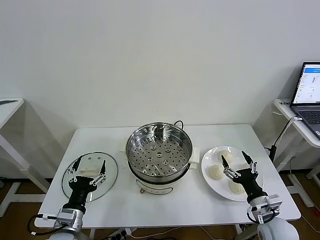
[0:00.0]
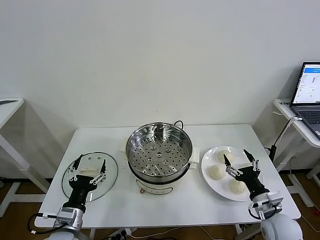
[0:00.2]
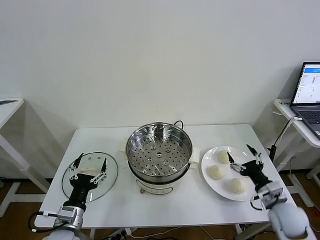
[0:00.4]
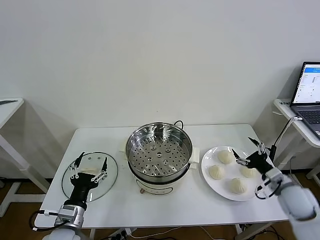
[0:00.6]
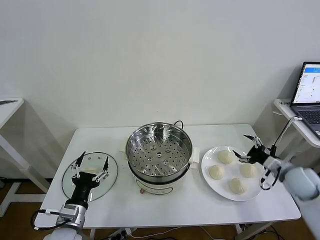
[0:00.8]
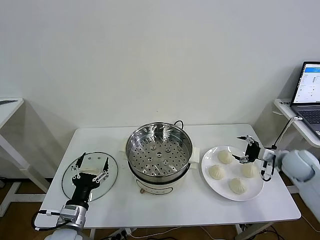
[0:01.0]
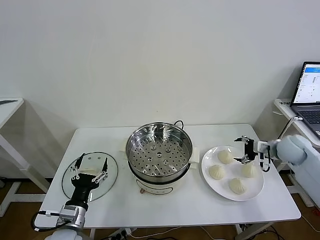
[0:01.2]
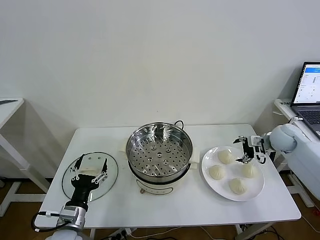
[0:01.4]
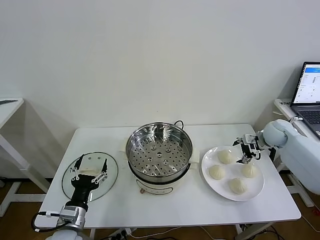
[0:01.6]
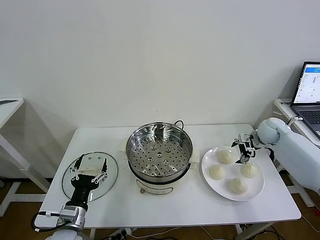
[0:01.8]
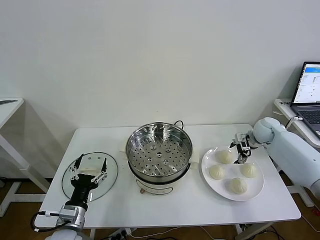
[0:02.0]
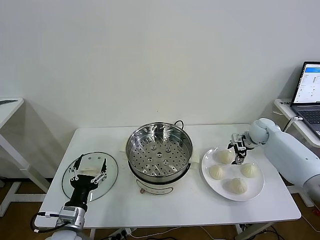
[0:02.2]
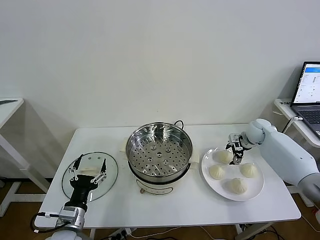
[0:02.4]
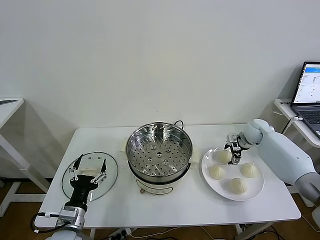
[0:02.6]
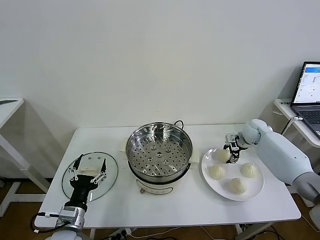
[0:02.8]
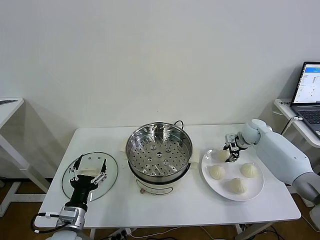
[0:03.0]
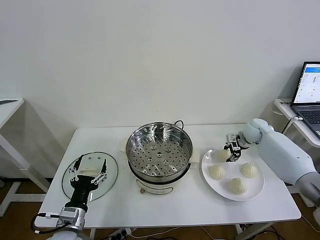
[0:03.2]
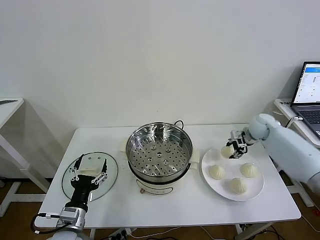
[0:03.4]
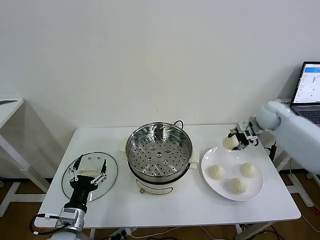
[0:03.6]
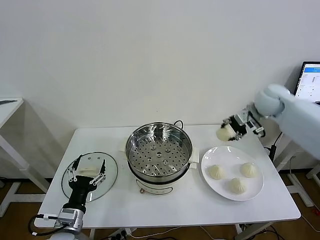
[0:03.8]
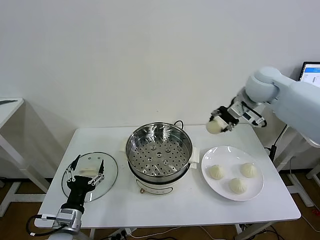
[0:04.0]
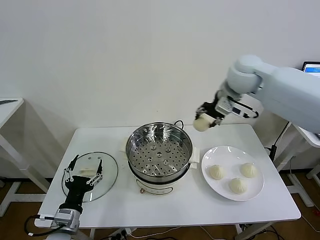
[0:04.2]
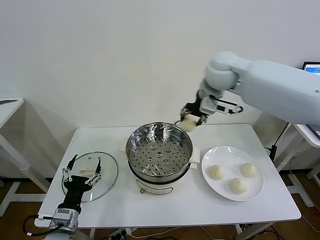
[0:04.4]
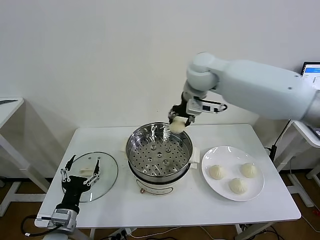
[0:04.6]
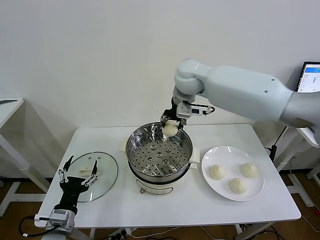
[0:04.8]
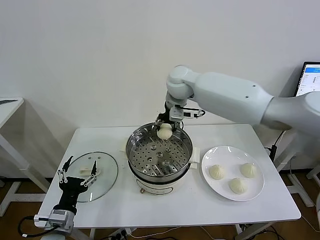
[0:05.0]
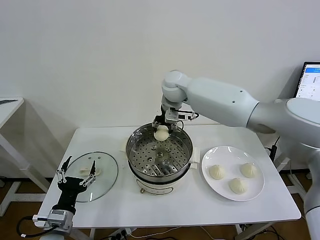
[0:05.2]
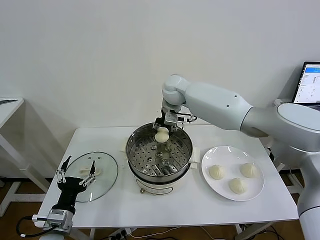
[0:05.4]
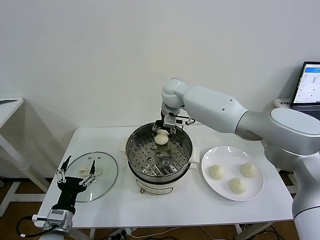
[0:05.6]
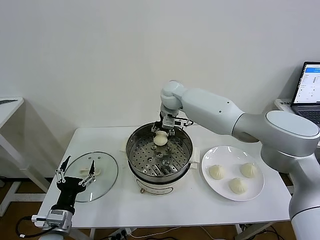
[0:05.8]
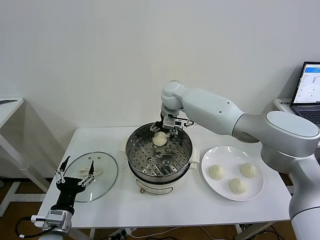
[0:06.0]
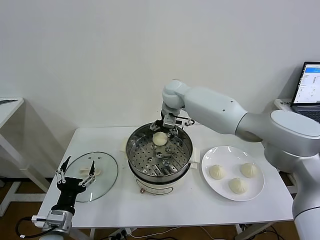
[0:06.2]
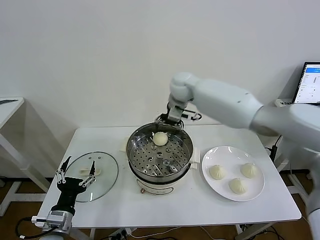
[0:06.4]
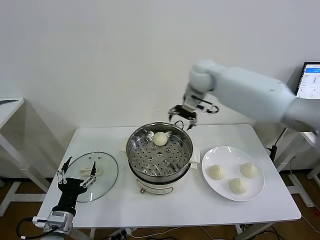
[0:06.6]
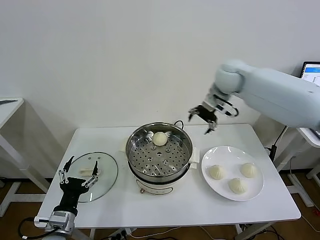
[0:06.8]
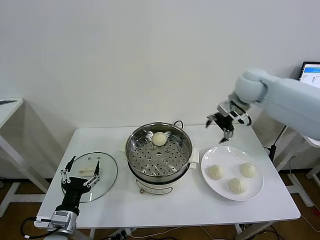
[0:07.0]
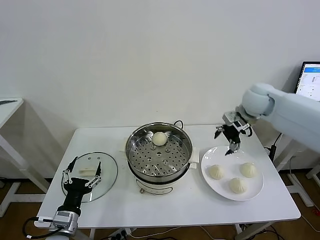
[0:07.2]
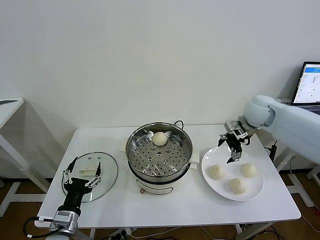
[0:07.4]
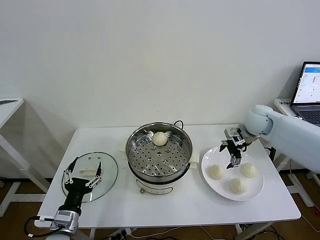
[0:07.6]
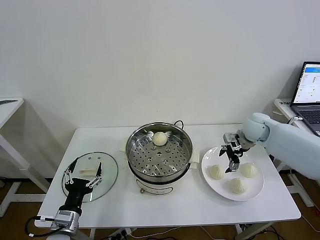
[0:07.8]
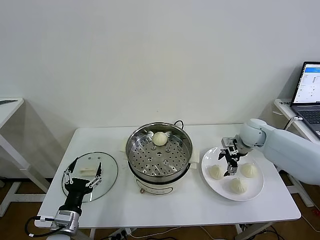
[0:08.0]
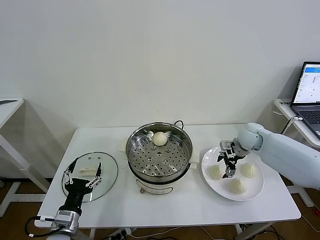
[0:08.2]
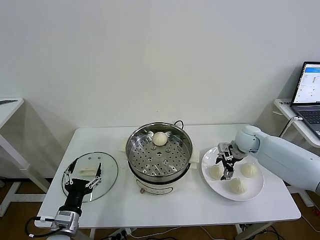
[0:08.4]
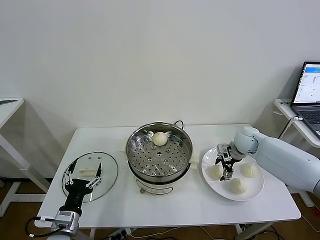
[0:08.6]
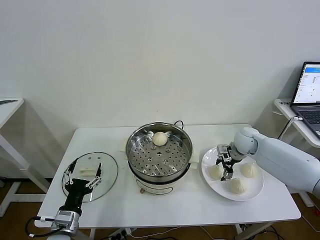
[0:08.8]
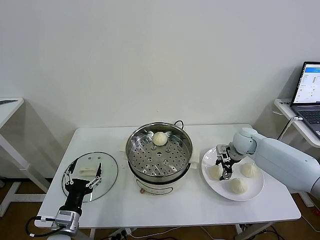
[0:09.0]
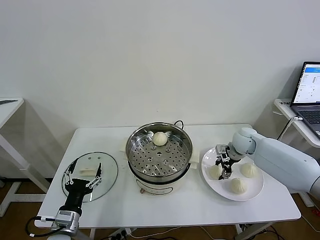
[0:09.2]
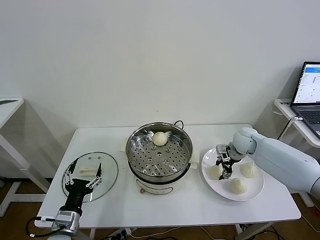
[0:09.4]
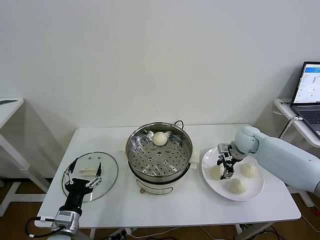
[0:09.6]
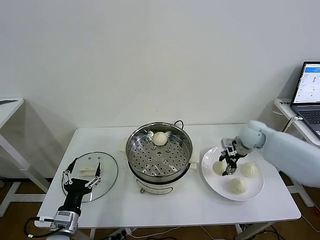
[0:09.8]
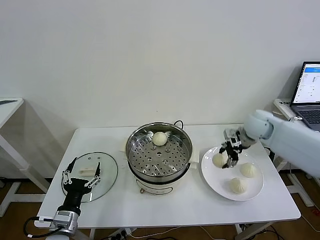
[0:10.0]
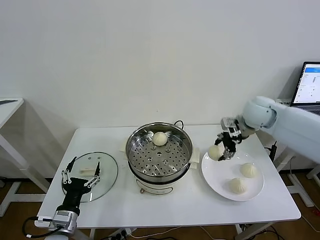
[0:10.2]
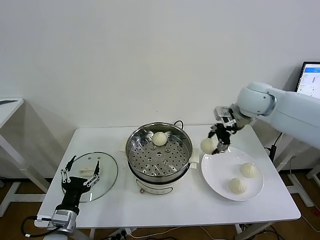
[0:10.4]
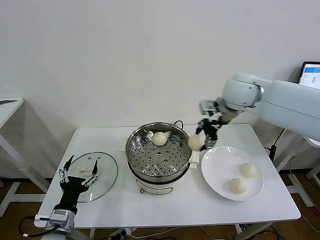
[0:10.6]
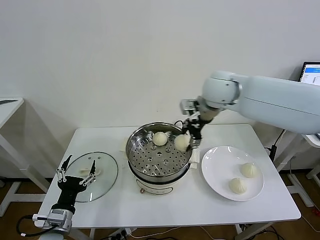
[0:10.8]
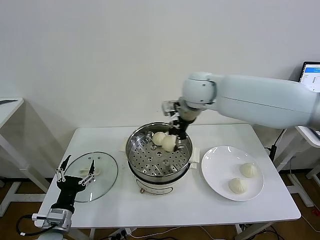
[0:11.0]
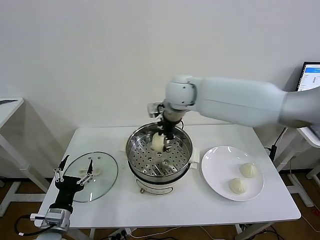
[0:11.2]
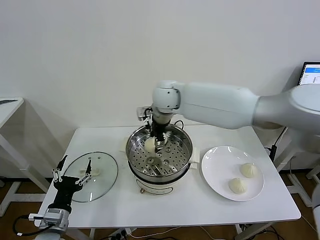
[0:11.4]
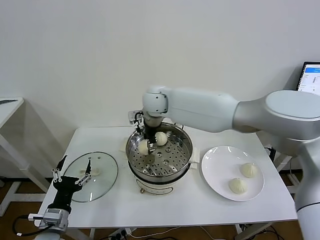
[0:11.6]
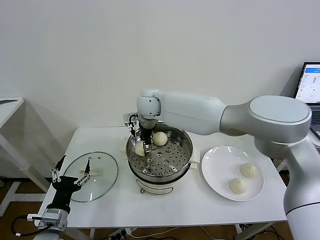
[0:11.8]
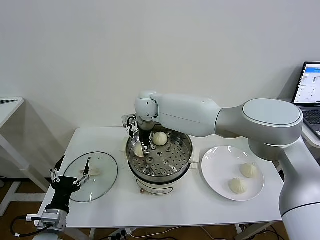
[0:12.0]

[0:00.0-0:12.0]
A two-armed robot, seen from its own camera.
Task of the whole recording: take steamed baozi put them in steamer then cover it.
Step, 0:00.0 to 0:02.8: Grasp the baozi in the plate with right gripper.
Step, 0:03.0 to 0:06.0: Place the baozi on the steamer with right gripper.
Step, 0:06.2 to 0:09.0: Grasp the baozi in the plate with right gripper.
0:01.6 to 0:03.0: The right gripper moves about 5 cm, and closes.
0:03.0 to 0:04.4: The right gripper shifts approximately 40 cm upward and to the left.
0:04.4 to 0:06.0: The right gripper is displaced downward, to the left and forward by approximately 15 cm, and opens its fingers.
0:06.0 to 0:07.6: The right gripper goes roughly 30 cm to the right.
0:07.6 to 0:09.0: The right gripper travels downward by some 10 cm, and closes up.
0:09.0 to 0:10.4: The right gripper is displaced upward by some 25 cm.
0:10.4 to 0:12.0: The right gripper is displaced to the left by some 30 cm, and opens its fingers.

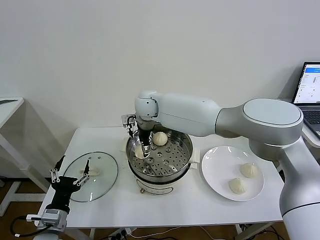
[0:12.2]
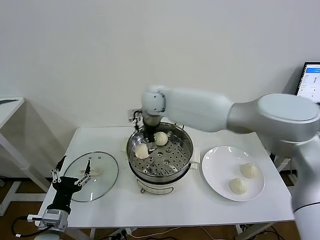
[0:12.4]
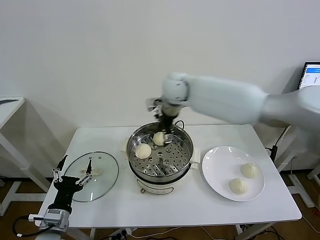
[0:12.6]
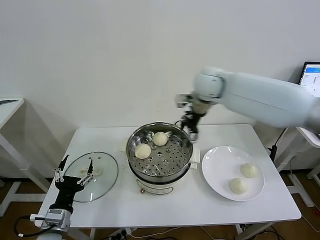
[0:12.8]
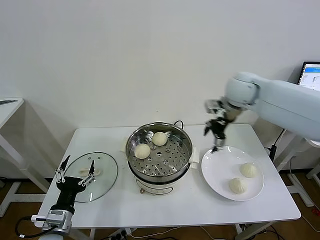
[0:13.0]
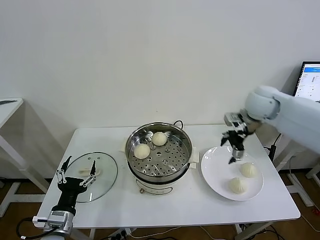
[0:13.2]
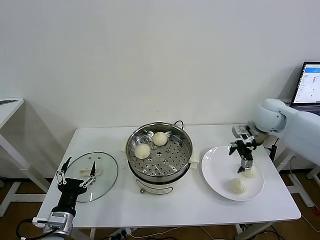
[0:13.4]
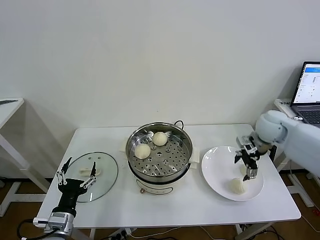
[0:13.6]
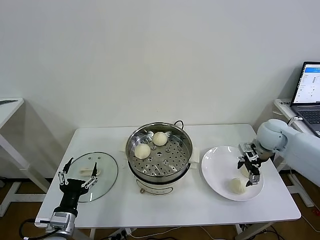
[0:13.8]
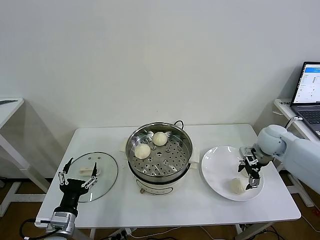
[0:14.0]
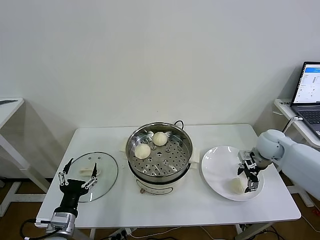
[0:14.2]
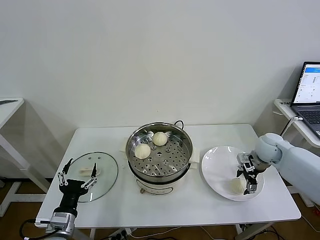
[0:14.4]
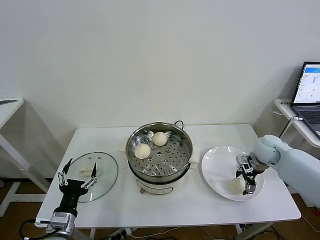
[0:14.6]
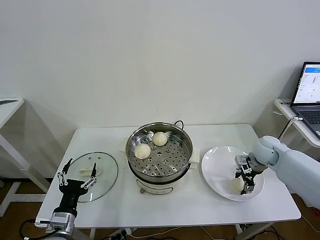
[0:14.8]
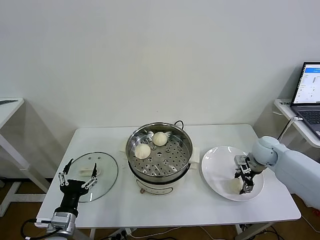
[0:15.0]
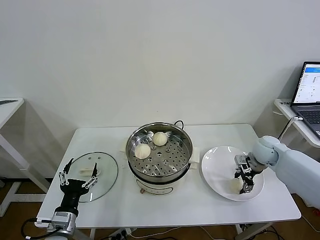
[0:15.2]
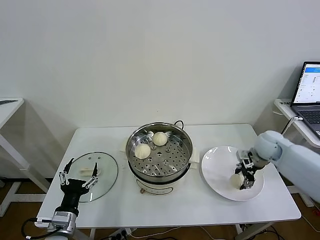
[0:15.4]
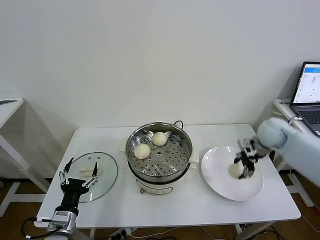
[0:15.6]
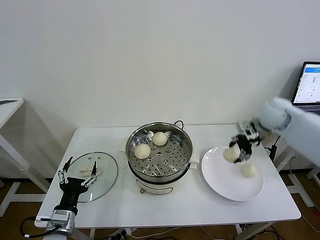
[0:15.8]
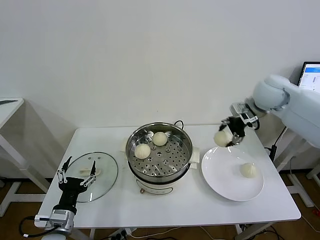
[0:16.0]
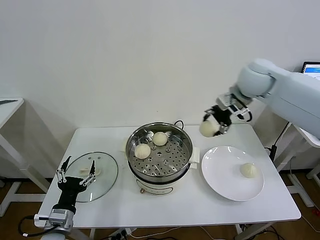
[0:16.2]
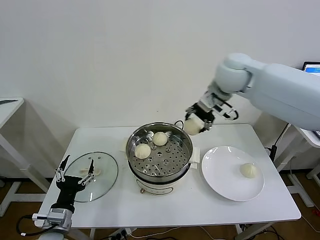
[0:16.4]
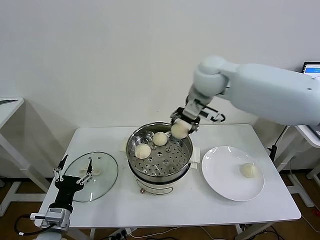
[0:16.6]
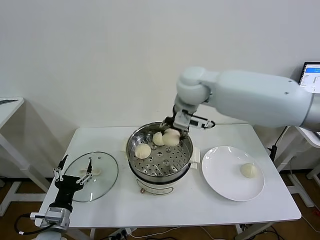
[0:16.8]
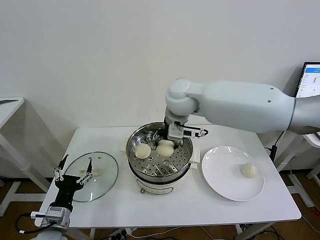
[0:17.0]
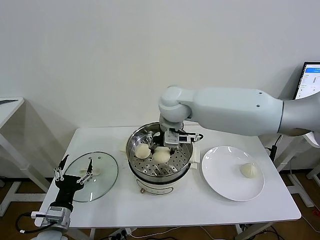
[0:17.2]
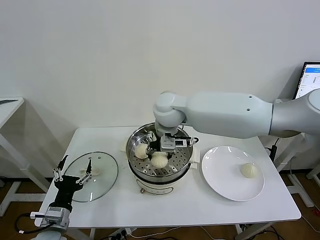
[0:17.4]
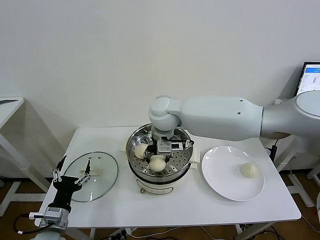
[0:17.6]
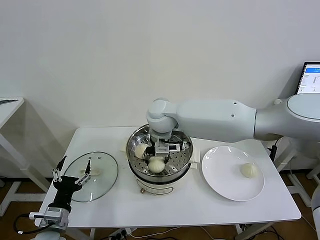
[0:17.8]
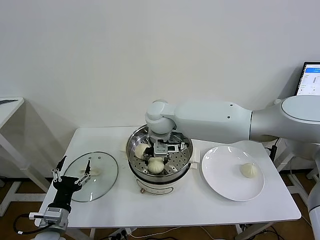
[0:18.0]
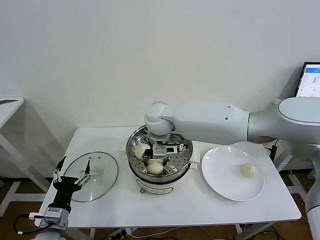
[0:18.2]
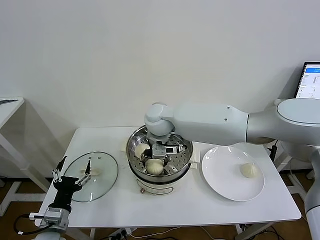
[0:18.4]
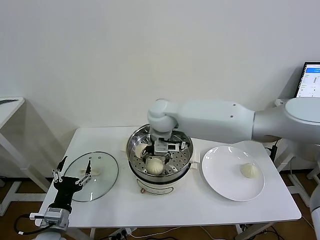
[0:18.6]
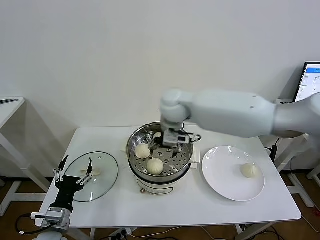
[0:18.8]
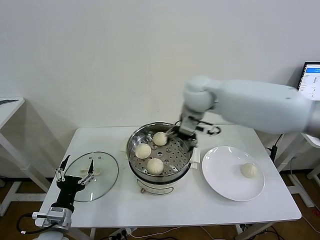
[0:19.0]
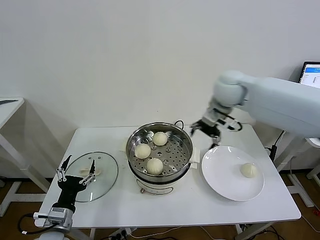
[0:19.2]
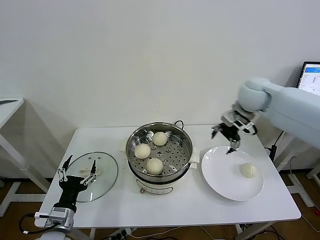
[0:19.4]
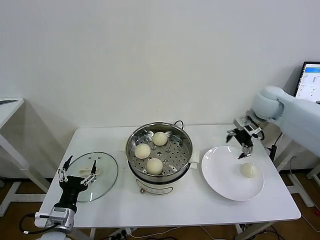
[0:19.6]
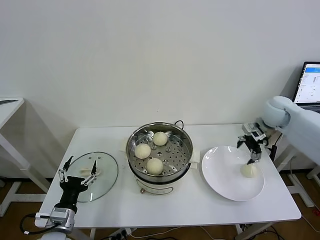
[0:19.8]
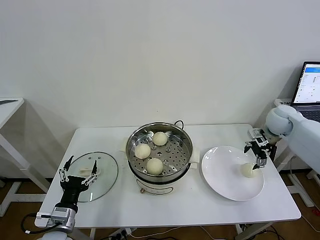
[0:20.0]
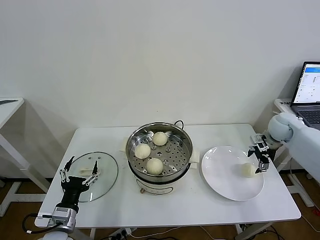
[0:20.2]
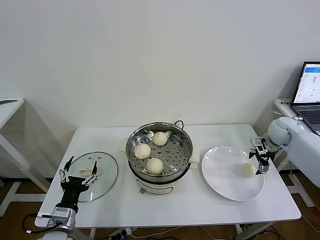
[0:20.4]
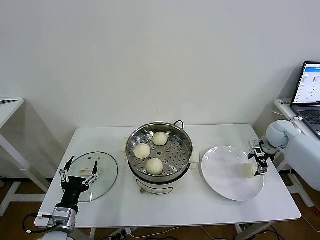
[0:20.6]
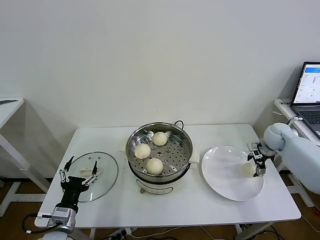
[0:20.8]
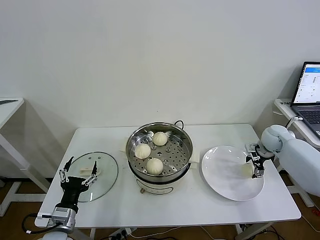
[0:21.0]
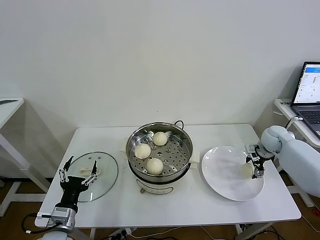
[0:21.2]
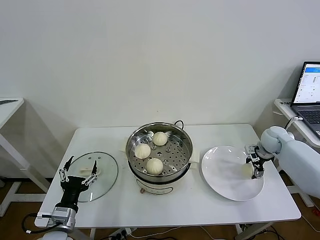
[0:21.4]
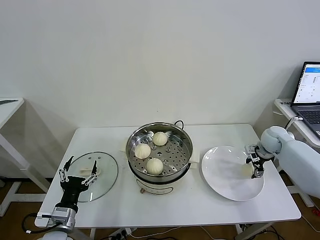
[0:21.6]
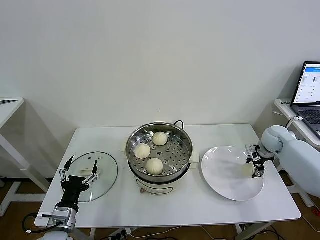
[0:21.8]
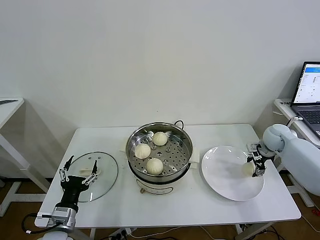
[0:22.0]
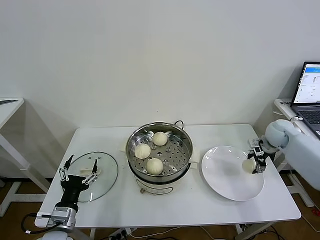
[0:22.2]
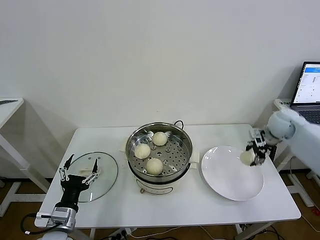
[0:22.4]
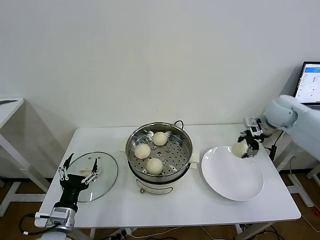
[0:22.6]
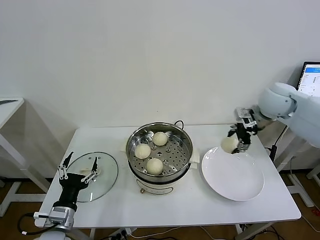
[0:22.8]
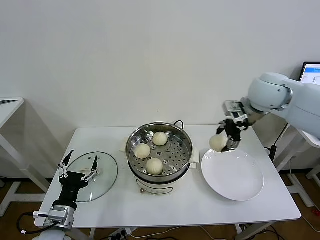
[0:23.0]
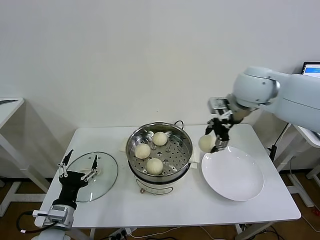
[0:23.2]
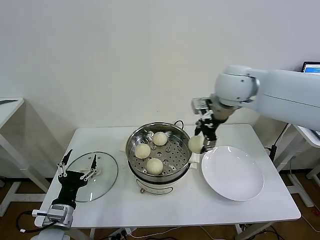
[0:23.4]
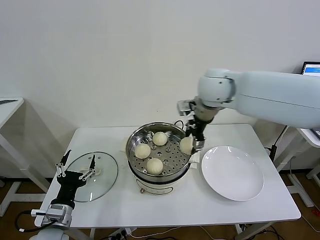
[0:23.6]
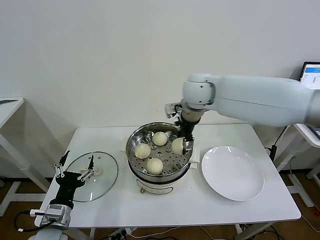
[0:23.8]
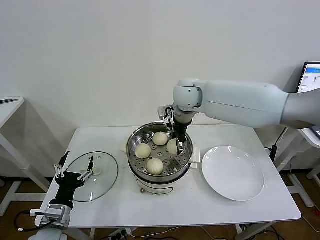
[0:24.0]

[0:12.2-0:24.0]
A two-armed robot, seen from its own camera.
Task of the whole recording: take steamed baozi put them in steamer then cover it.
Step, 0:12.2 to 0:14.8: Grasp the baozi in the plate with right gripper.
Step, 0:15.0 to 0:18.4: Place the baozi on the steamer with right gripper.
Step, 0:18.6 to 0:21.6: Grasp the baozi in the plate with right gripper.
0:12.2 to 0:13.6: The right gripper is displaced to the right by approximately 40 cm.
0:13.6 to 0:15.2: The right gripper is displaced downward by about 10 cm, and closes its fingers.
0:15.2 to 0:16.6: The right gripper goes some 35 cm to the left and upward.
0:16.6 to 0:18.2: The right gripper heads downward and to the left, covering approximately 20 cm.
0:18.2 to 0:19.6: The right gripper shifts about 35 cm to the right, and opens up.
0:19.6 to 0:21.0: The right gripper heads downward and to the right, covering roughly 20 cm.
0:21.0 to 0:22.6: The right gripper is displaced upward by approximately 15 cm, and closes.
0:22.6 to 0:24.0: The right gripper goes roughly 30 cm to the left.
